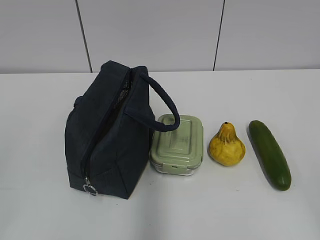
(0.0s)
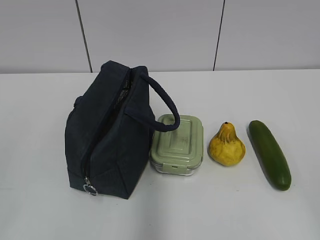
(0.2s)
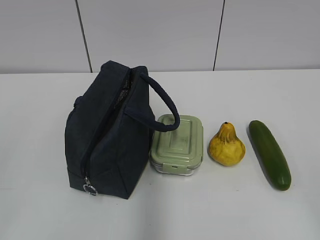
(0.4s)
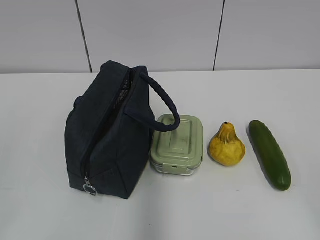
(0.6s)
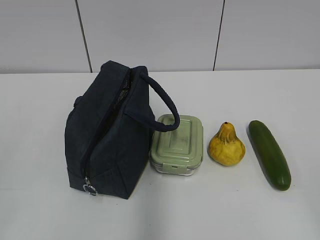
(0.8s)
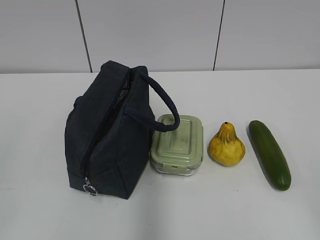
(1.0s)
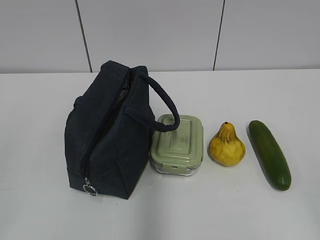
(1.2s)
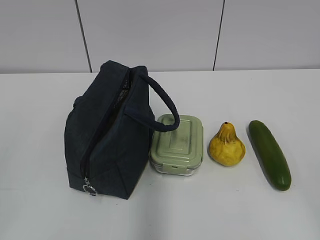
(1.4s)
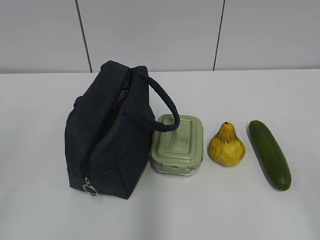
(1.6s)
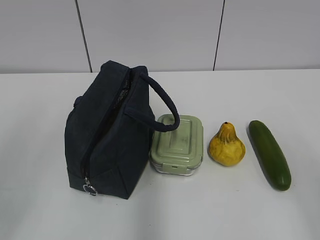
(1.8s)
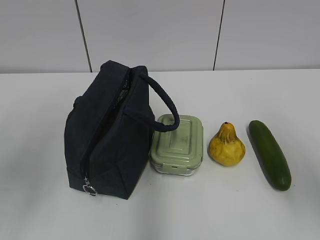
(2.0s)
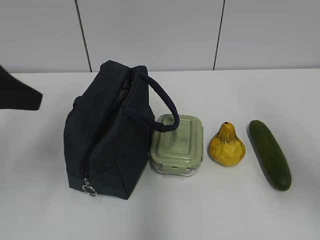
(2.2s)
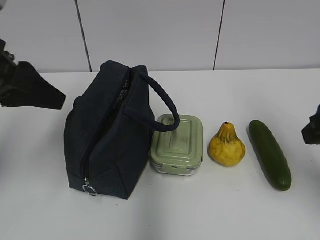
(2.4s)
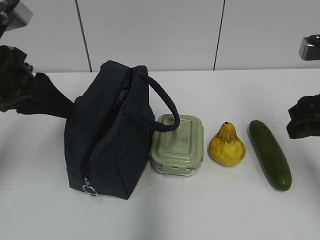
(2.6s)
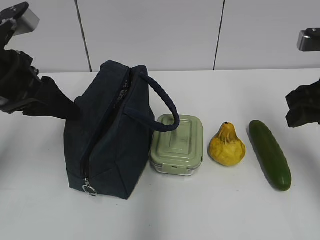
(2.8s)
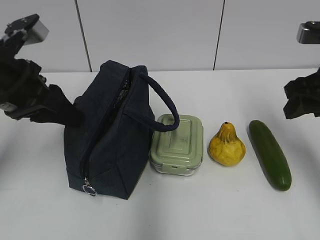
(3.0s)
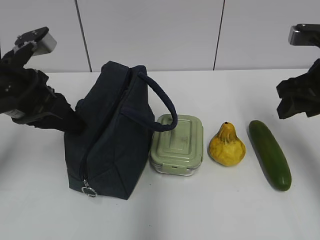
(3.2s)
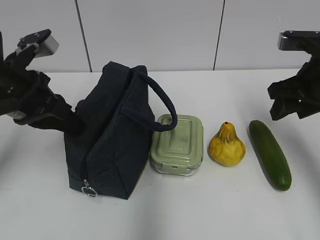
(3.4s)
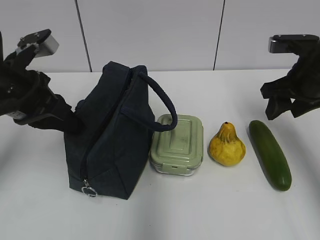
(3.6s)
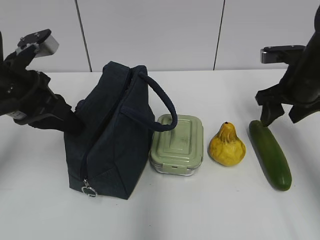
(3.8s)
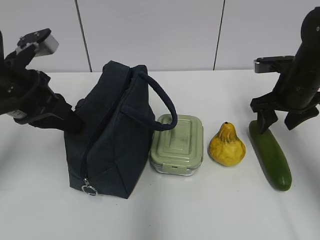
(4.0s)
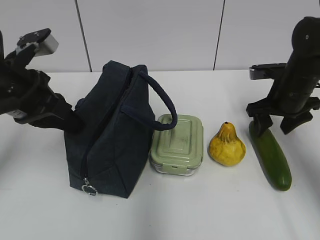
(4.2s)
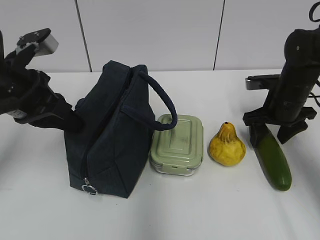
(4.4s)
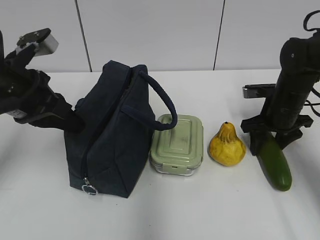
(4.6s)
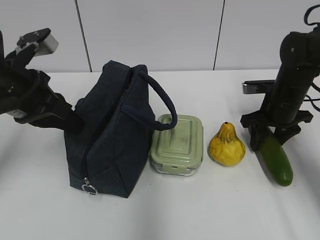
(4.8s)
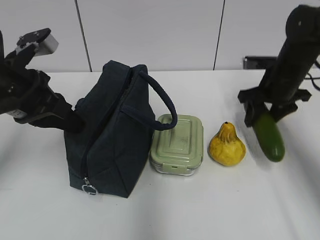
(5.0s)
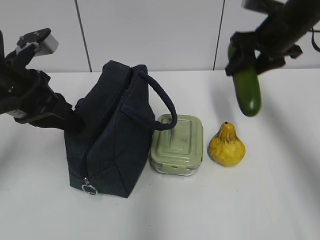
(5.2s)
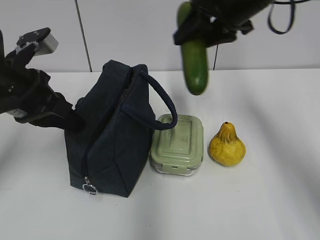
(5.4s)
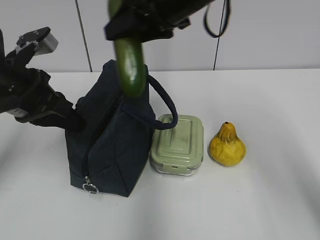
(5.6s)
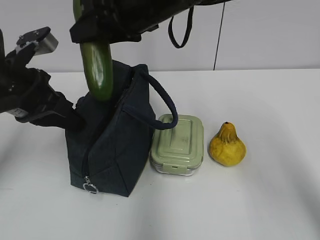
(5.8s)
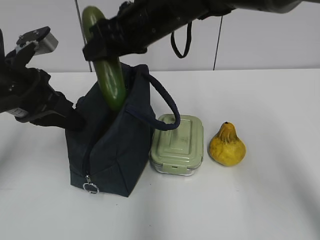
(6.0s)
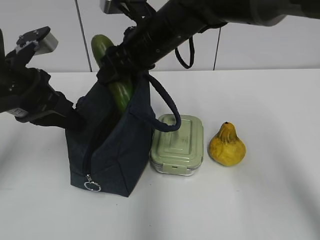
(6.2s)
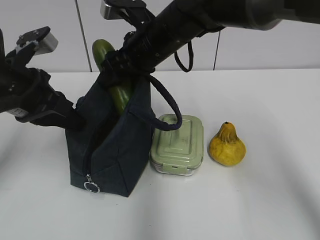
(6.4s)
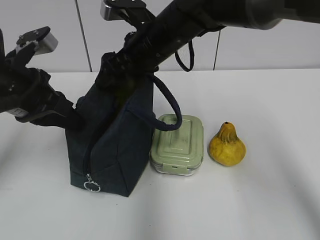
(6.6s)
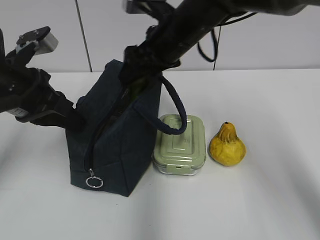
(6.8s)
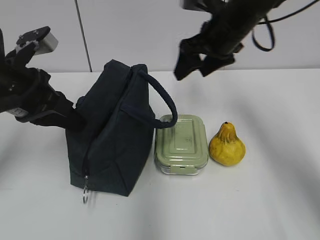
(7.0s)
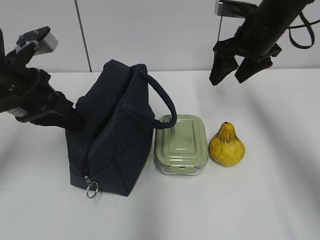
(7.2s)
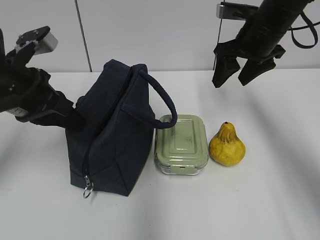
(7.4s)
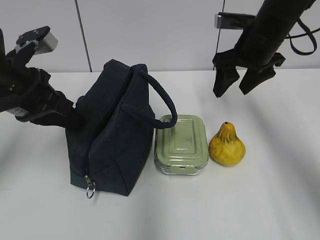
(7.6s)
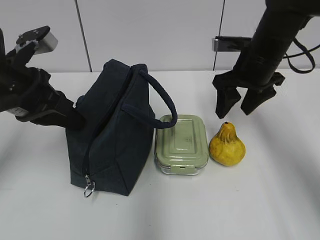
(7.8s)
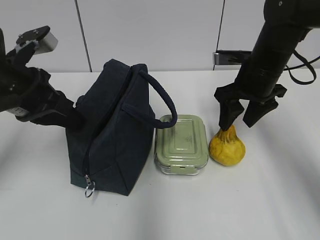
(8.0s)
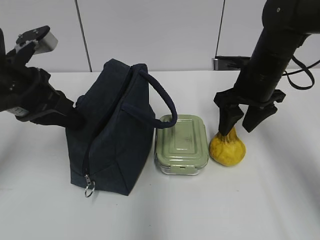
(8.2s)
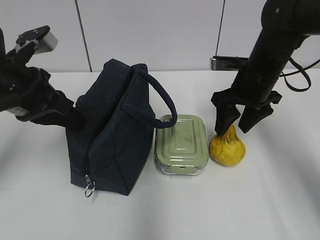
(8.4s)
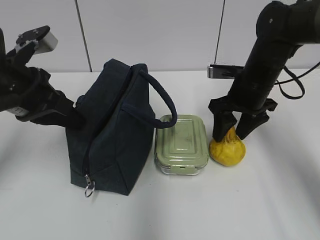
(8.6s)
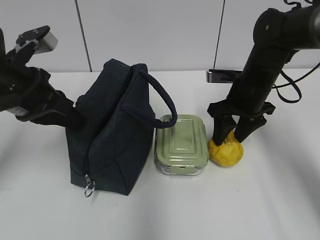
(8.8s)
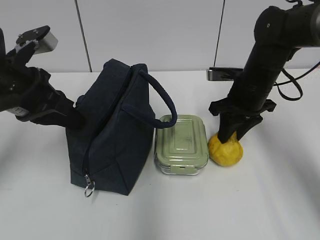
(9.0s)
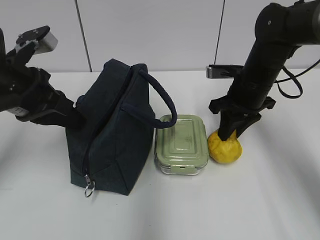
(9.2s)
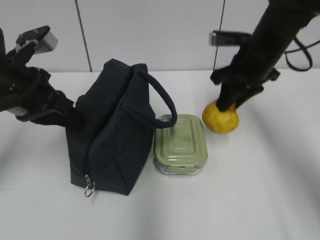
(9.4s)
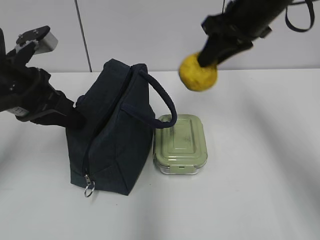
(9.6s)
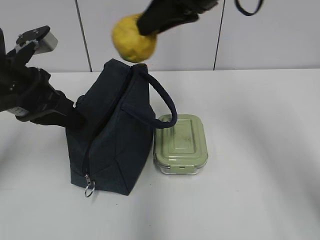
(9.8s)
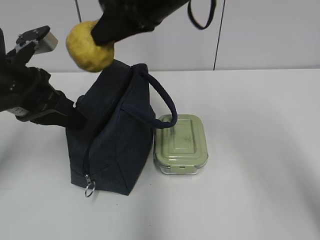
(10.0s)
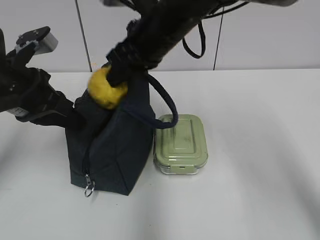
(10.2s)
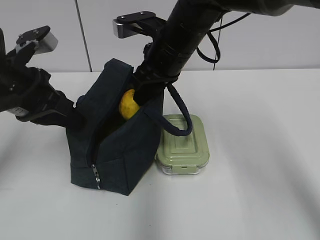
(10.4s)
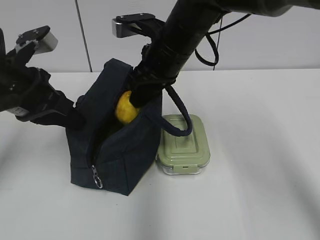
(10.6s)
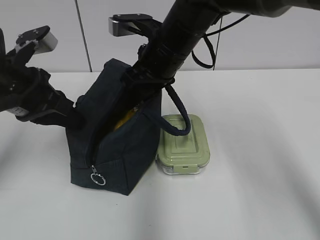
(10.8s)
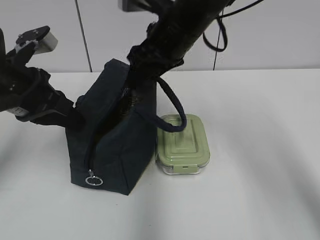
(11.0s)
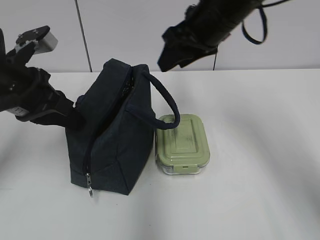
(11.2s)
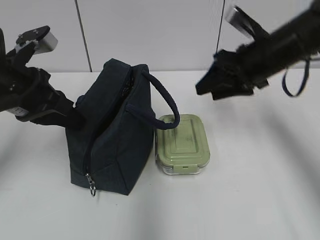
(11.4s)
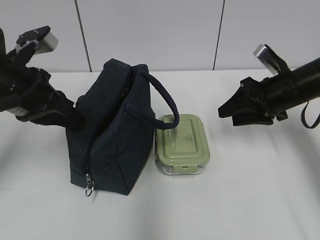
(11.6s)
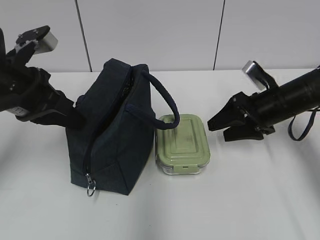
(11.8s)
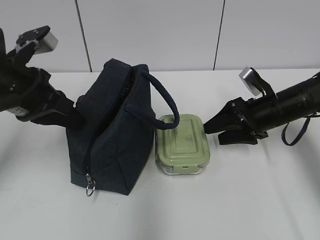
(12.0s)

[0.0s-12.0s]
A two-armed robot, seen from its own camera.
1.6s to 3.0s: Both grippers travel together forward, roughly 25 cm.
3.0s to 4.4s: The left gripper closes its fingers. The right gripper goes roughly 15 cm downward and forward.
4.4s to 6.0s: The right gripper heads to the left and upward, covering about 30 cm.
6.0s to 7.6s: The right gripper is displaced to the right by some 20 cm.
7.6s to 9.0s: The right gripper travels downward by some 10 cm, and closes its fingers.
9.0s to 10.4s: The right gripper shifts approximately 15 cm to the left and upward.
10.4s to 12.0s: The right gripper shifts about 25 cm to the right and downward, and opens its fingers.

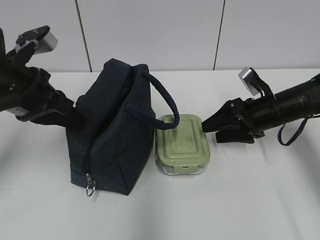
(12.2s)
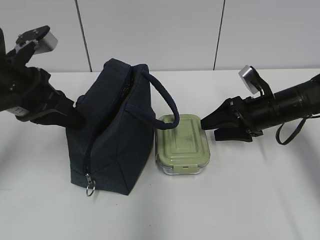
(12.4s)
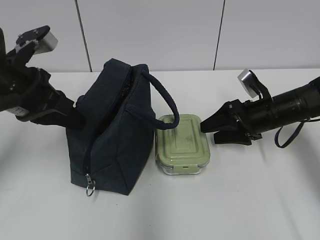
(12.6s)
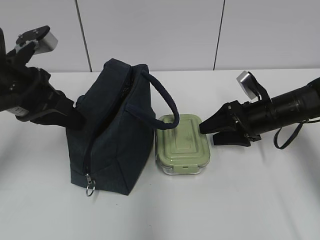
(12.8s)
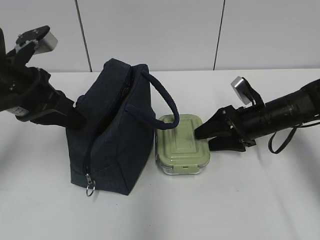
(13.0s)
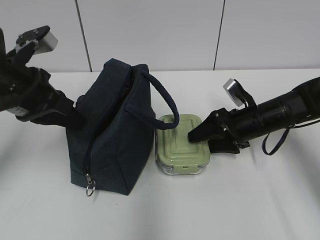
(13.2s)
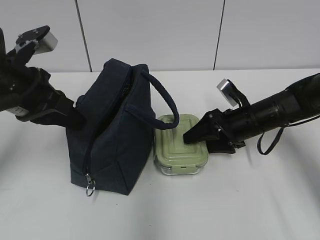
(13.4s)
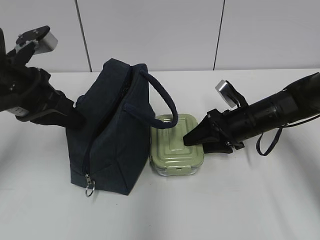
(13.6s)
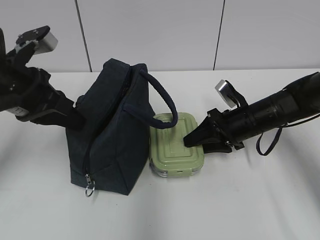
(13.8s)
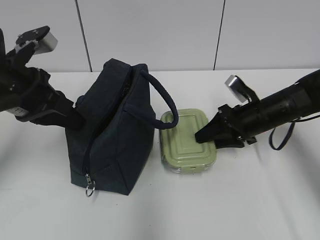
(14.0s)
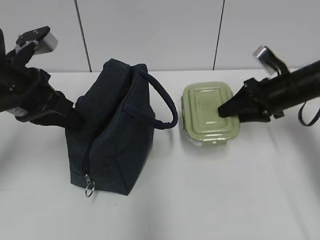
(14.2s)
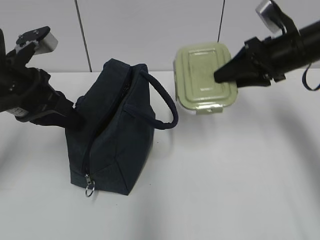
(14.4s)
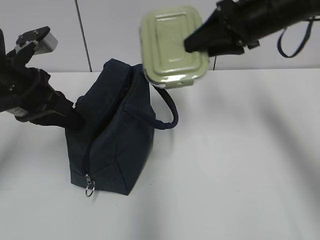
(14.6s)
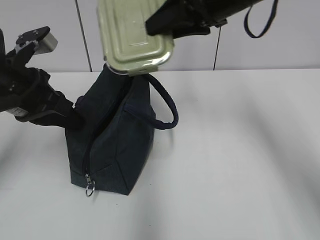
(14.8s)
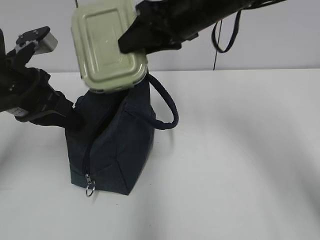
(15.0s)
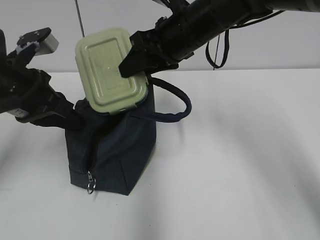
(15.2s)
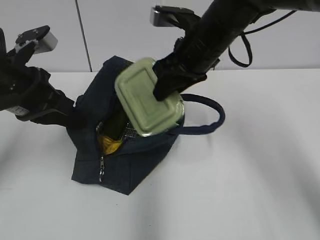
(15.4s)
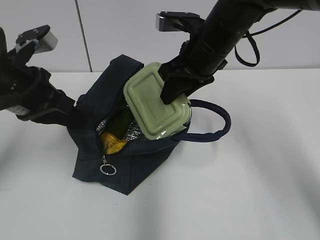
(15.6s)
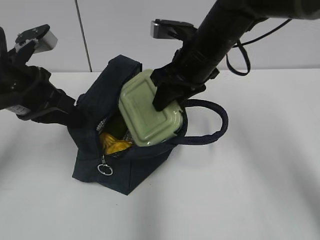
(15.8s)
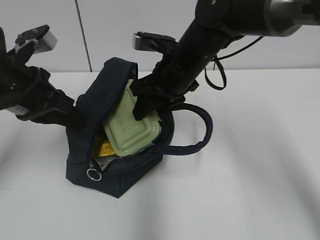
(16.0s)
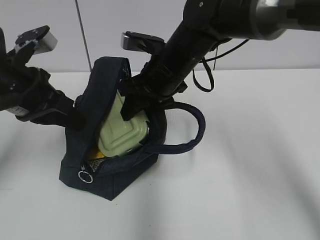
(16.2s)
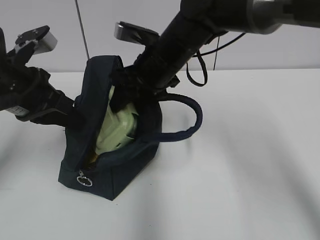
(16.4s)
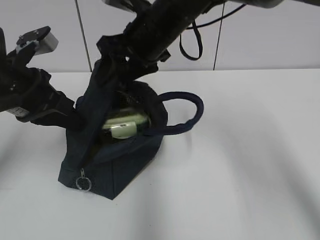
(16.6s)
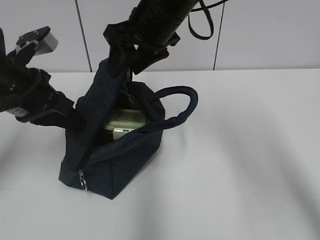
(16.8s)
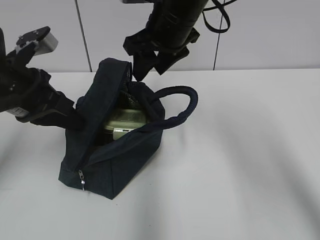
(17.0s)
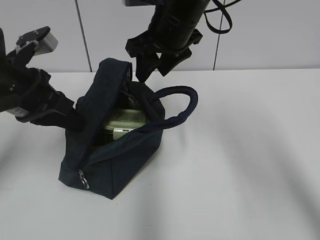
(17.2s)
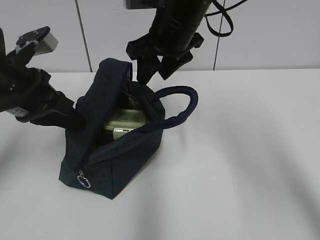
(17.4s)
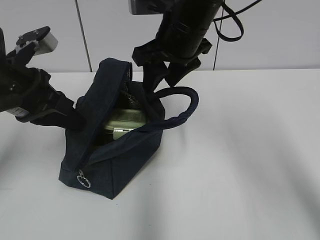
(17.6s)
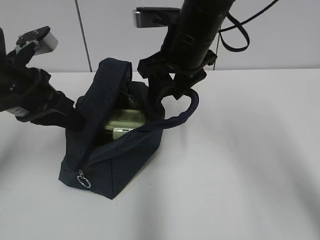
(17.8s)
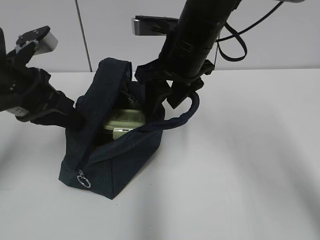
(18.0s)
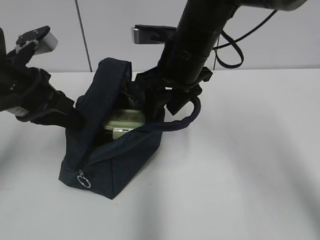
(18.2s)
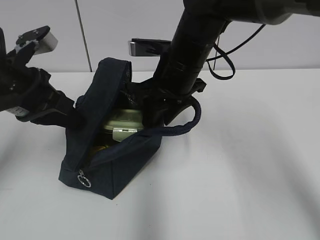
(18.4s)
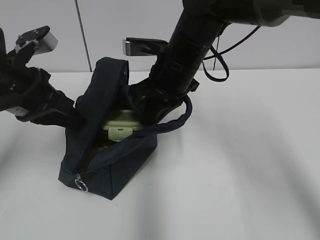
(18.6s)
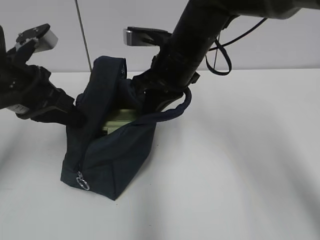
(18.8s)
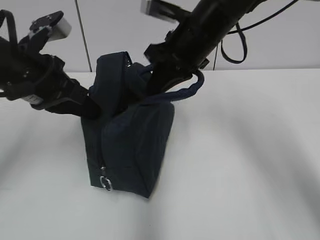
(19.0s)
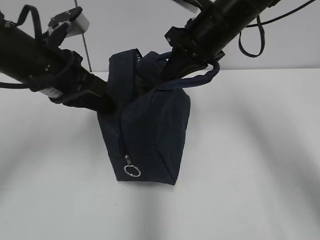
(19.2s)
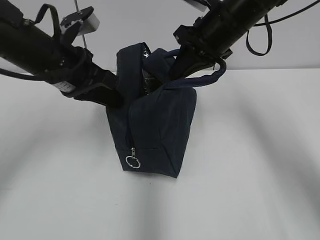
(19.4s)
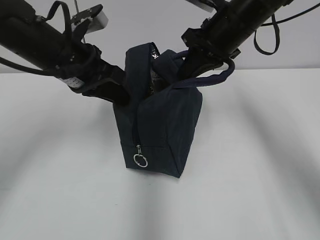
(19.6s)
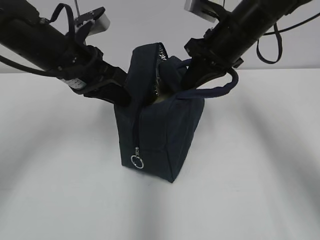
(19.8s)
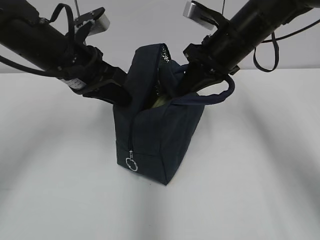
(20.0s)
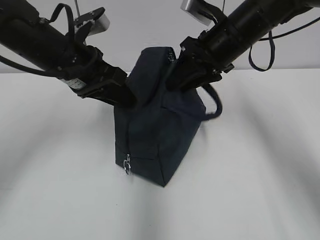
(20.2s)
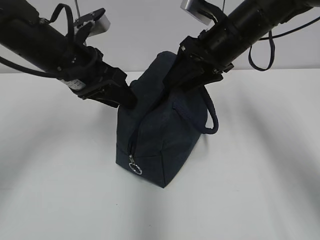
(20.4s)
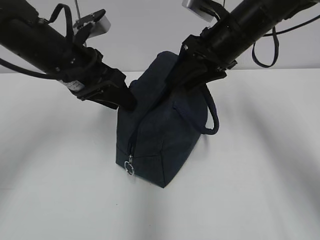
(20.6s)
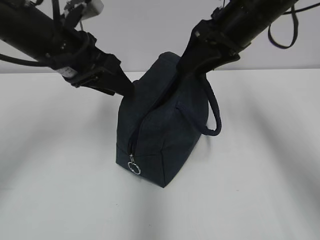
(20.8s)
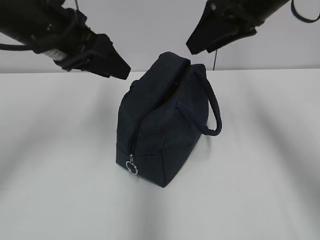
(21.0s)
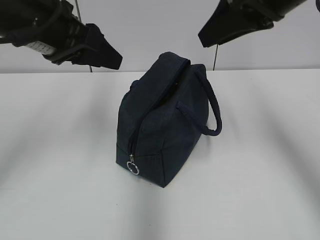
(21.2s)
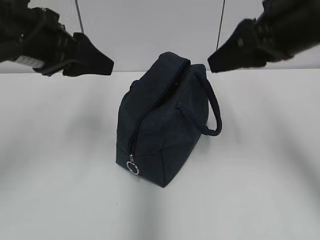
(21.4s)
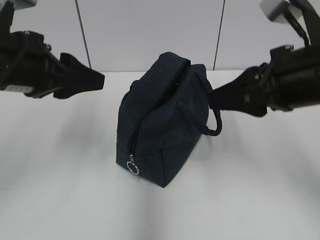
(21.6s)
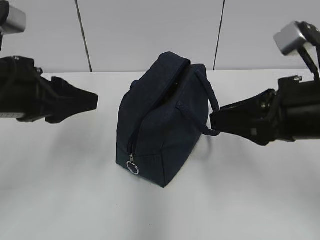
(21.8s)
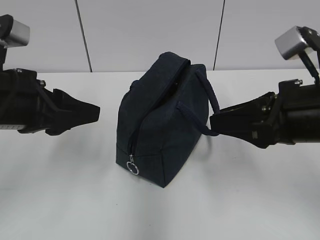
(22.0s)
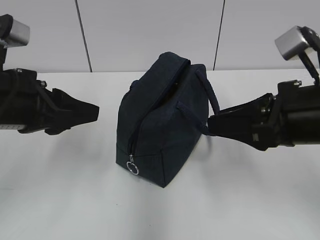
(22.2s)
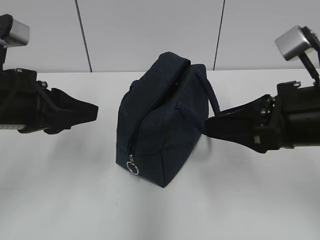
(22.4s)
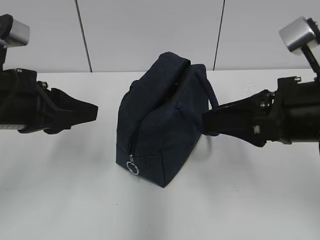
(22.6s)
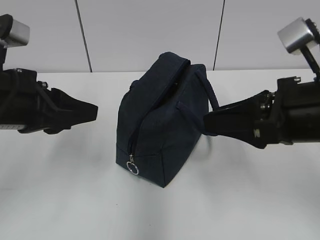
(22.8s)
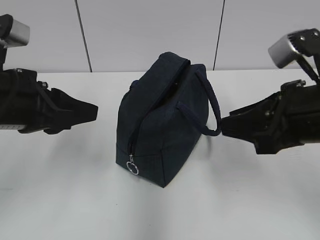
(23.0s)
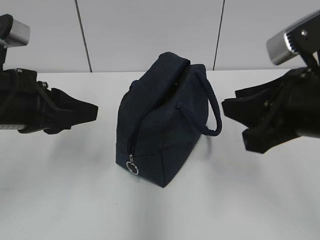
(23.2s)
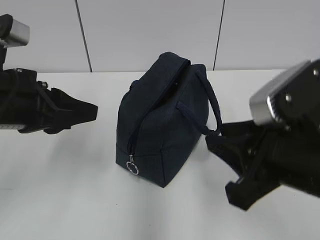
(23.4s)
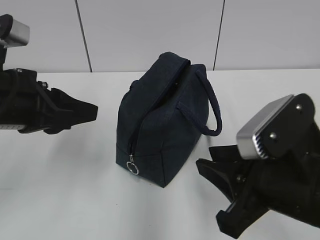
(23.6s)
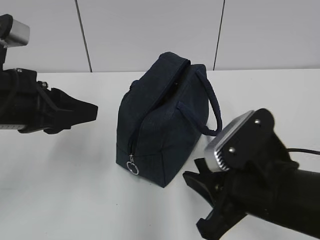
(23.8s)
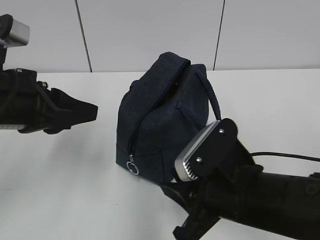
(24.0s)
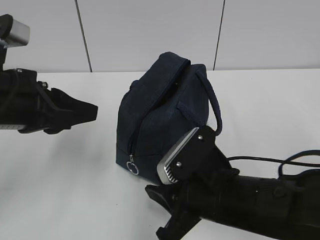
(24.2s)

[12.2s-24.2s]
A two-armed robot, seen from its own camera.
12.2s to 13.8s: The right gripper closes.
13.8s to 15.2s: The right gripper moves upward and to the left, roughly 20 cm.
15.2s to 16.6s: The right gripper shifts roughly 5 cm to the left.
16.6s to 18.2s: The right gripper shifts by roughly 5 cm.
18.2s to 19.8s: The left gripper goes about 10 cm to the right and forward. The right gripper shifts some 10 cm to the right, and closes its fingers.
19.8s to 21.2s: The right gripper moves upward and backward, approximately 15 cm, and opens its fingers. Meanwhile the left gripper goes approximately 5 cm upward, and opens.
21.2s to 22.6s: The right gripper travels downward and backward by some 15 cm. Meanwhile the left gripper moves backward and downward, approximately 10 cm.
22.6s to 24.2s: The right gripper is displaced downward and to the left by roughly 15 cm.
